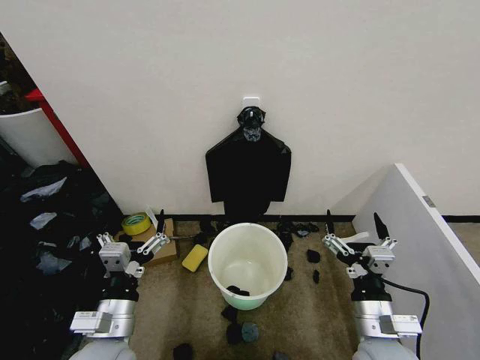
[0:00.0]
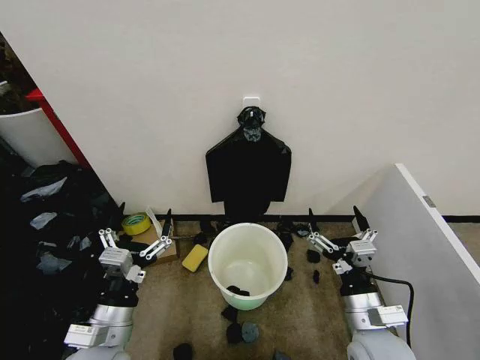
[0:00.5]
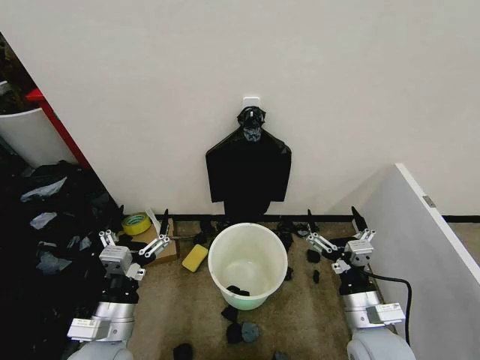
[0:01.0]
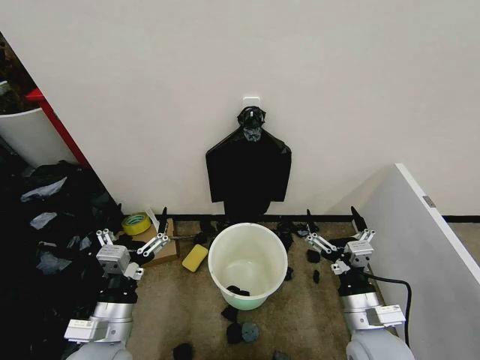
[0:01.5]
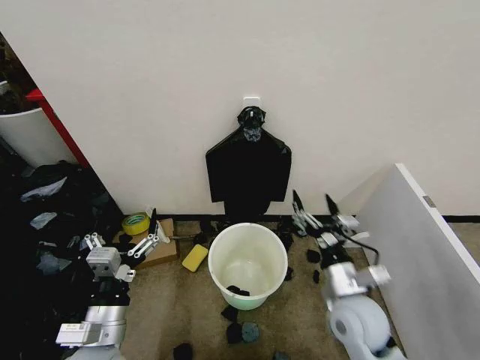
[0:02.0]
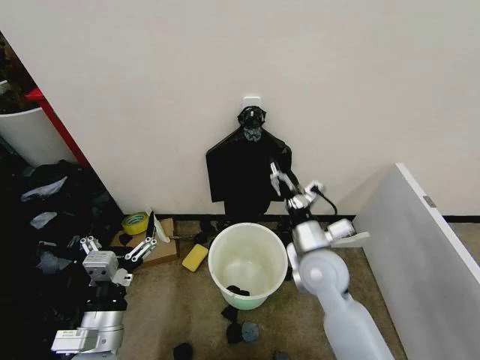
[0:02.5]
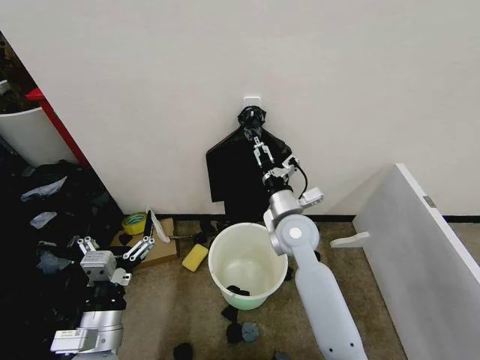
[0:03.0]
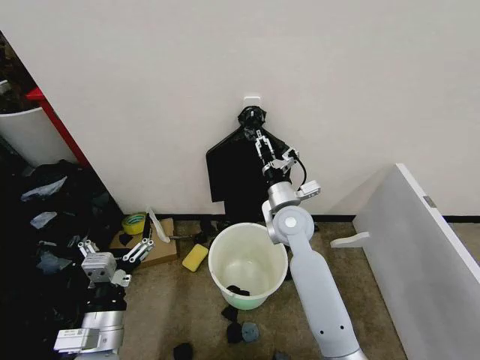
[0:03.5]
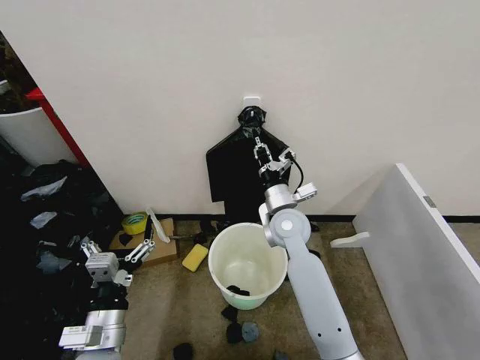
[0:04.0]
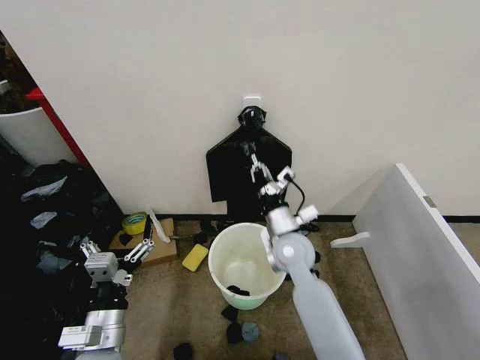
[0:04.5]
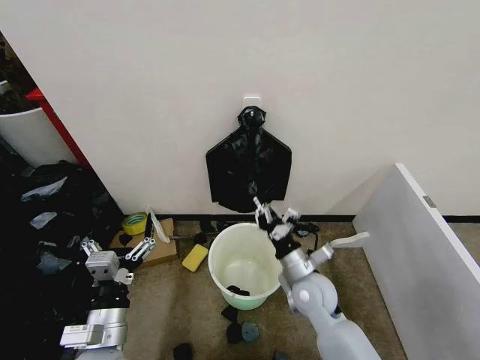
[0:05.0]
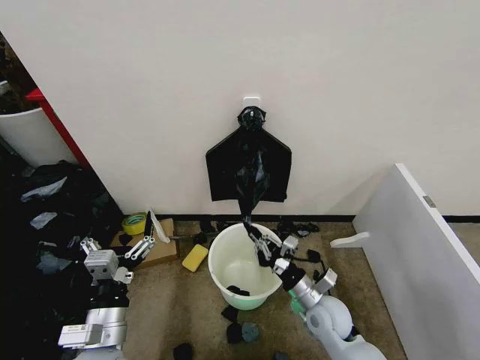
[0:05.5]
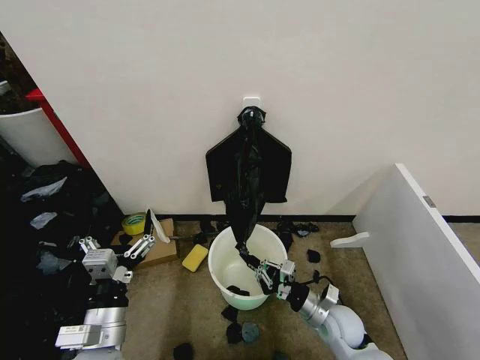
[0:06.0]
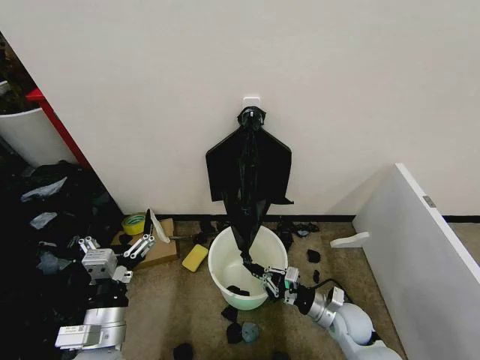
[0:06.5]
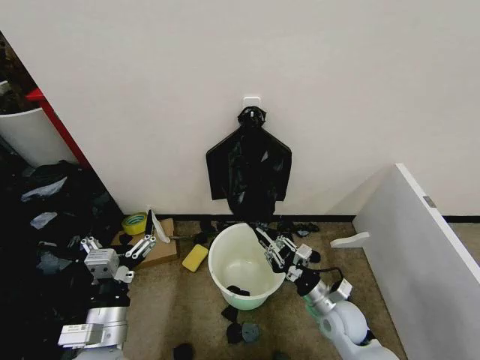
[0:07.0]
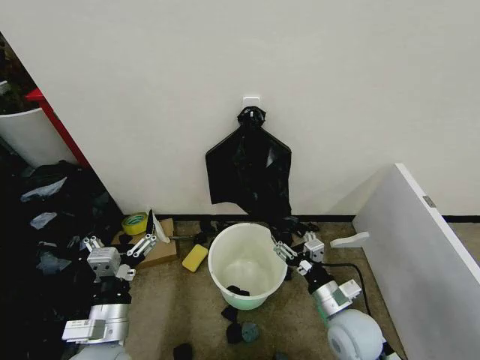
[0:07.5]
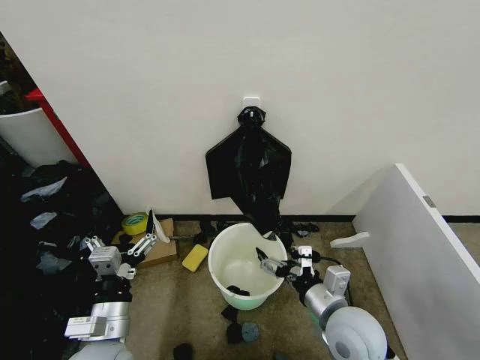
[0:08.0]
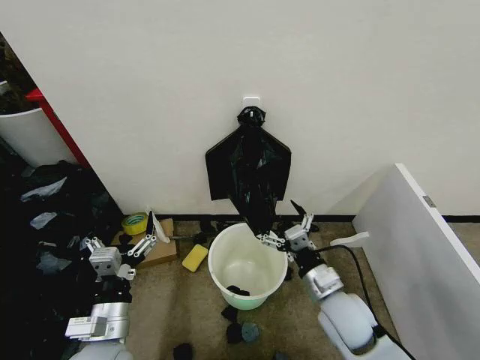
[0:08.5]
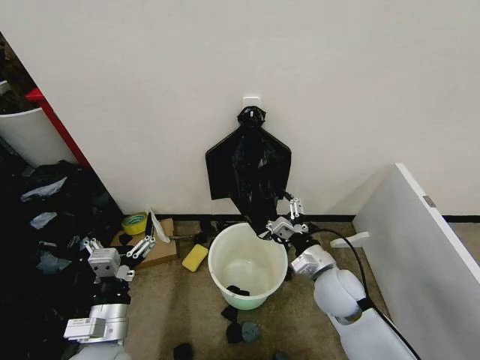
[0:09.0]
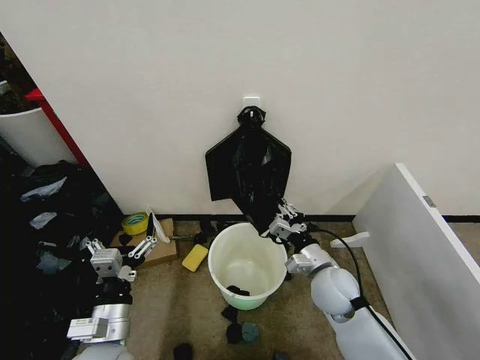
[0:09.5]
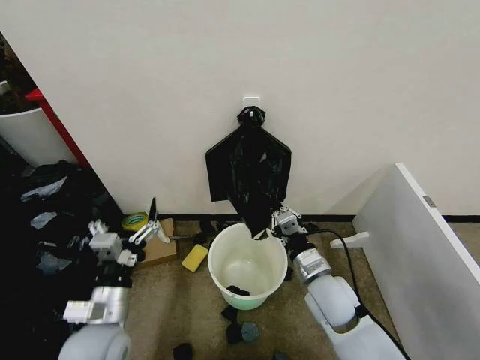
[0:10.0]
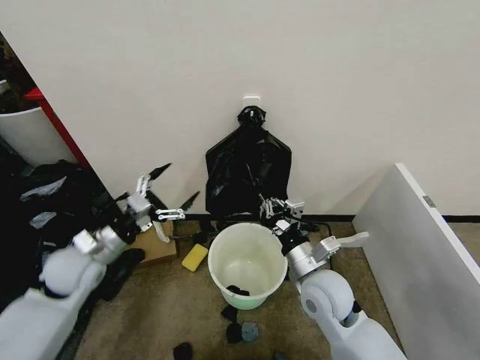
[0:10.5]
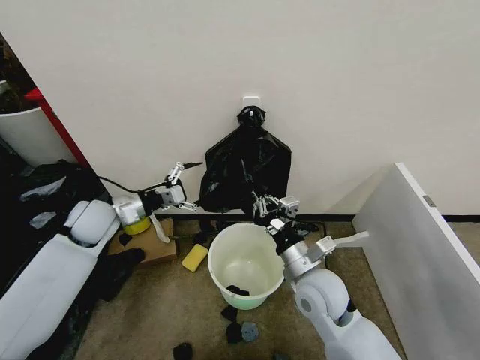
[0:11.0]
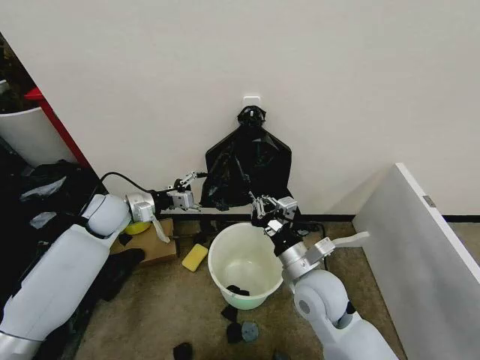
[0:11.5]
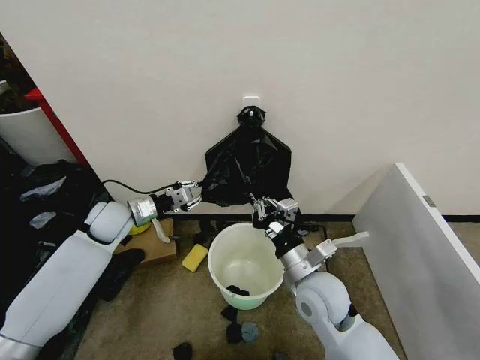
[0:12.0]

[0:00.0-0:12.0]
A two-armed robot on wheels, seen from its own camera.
Task of the whole recording: Place the garbage bag over the trash bin.
0:02.0 to 0:04.0: The right gripper travels forward and to the left by roughly 20 cm, and closes.
0:04.0 to 0:06.0: The right gripper goes about 25 cm downward, backward and to the right.
0:06.0 to 0:08.0: The right gripper heads upward, covering approximately 15 cm, and opens up.
0:08.0 to 0:10.0: The right gripper moves forward, some 5 cm, and closes its fingers.
0:10.0 to 0:12.0: The left gripper is displaced forward by about 25 cm, and closes its fingers.

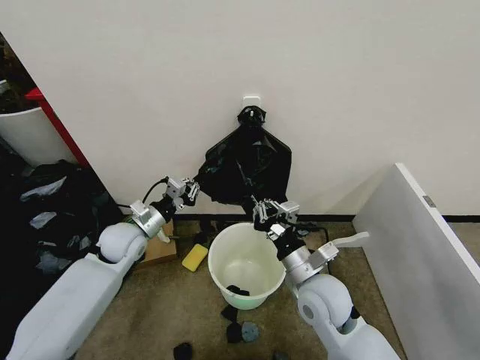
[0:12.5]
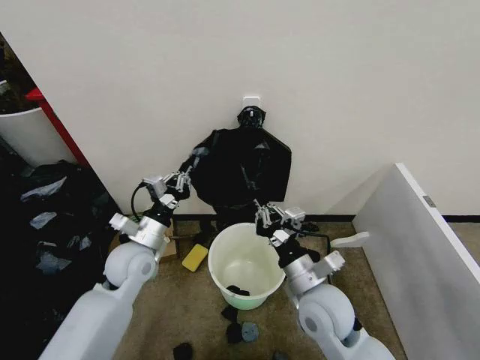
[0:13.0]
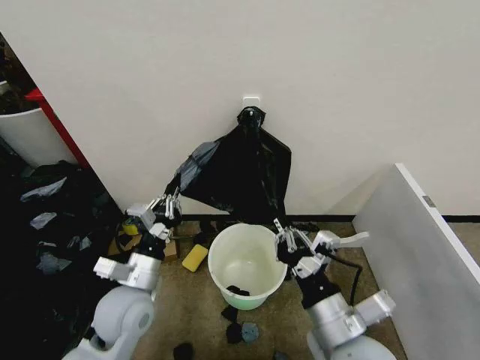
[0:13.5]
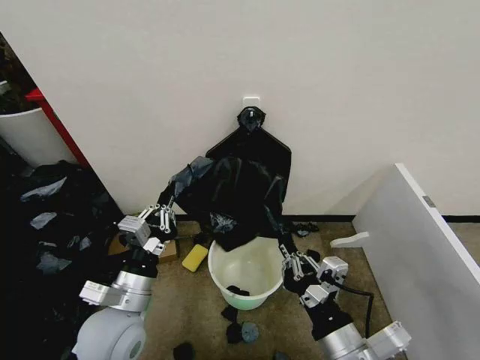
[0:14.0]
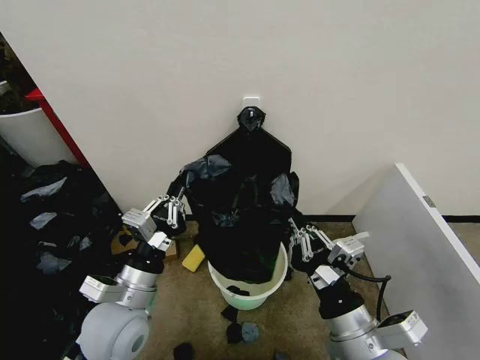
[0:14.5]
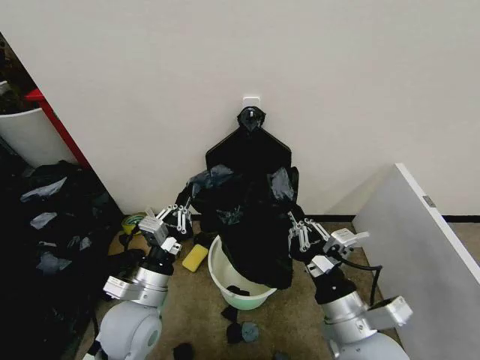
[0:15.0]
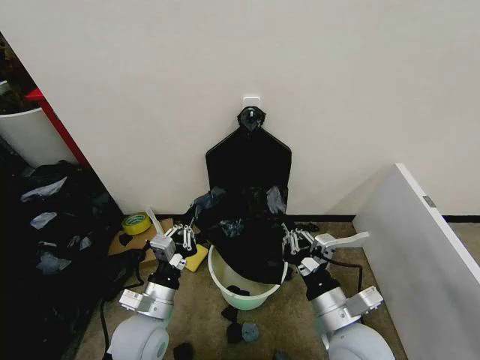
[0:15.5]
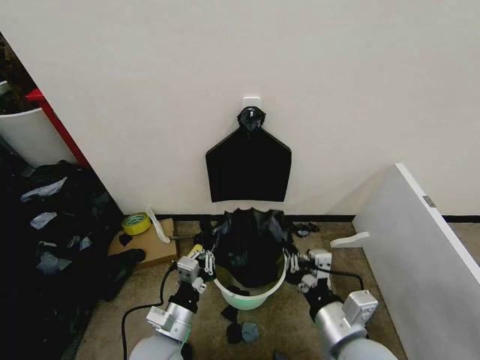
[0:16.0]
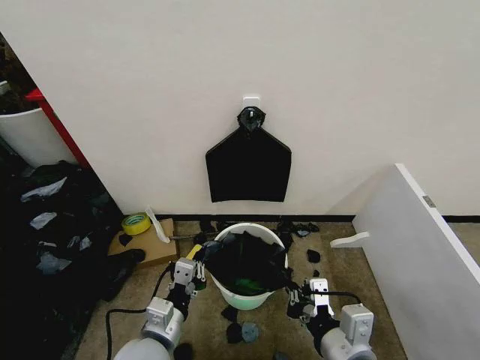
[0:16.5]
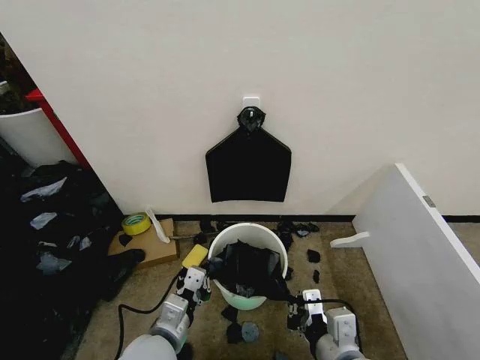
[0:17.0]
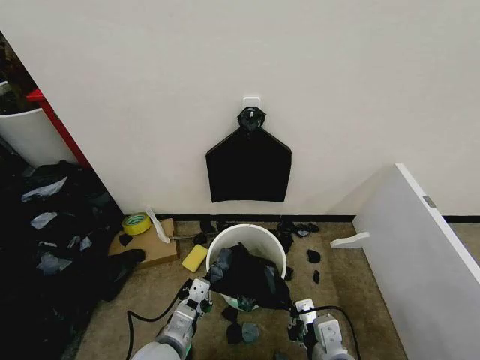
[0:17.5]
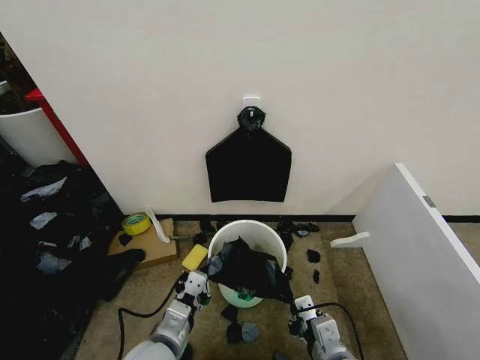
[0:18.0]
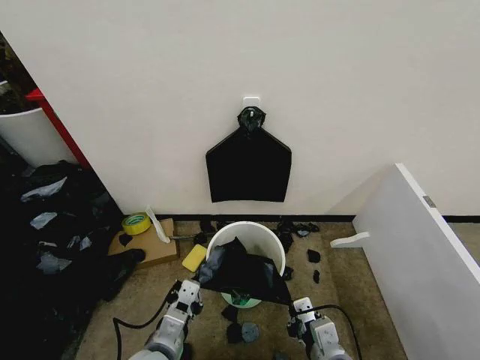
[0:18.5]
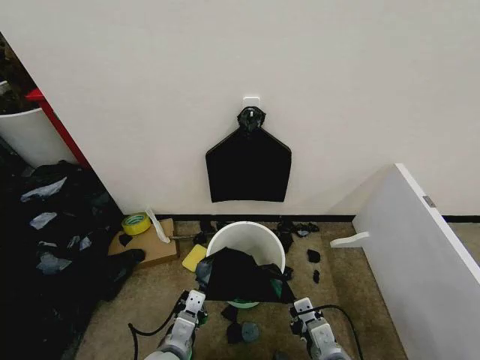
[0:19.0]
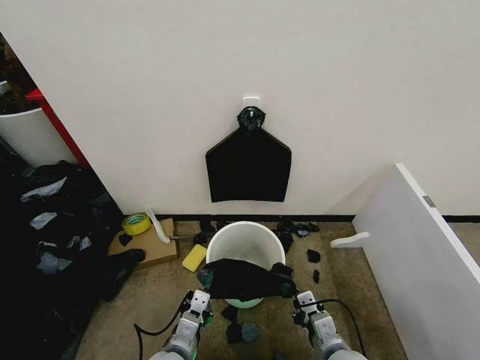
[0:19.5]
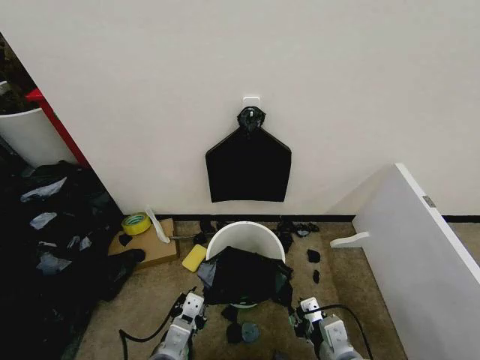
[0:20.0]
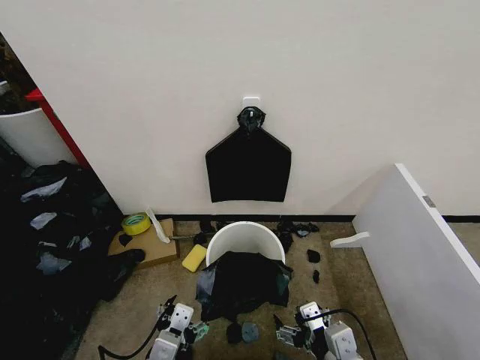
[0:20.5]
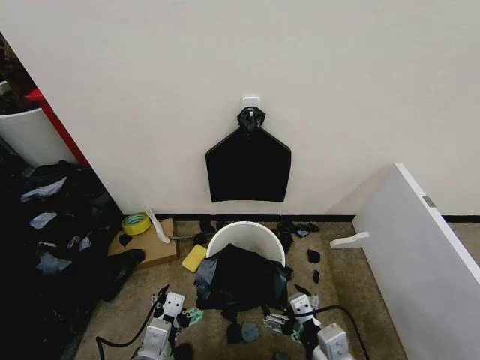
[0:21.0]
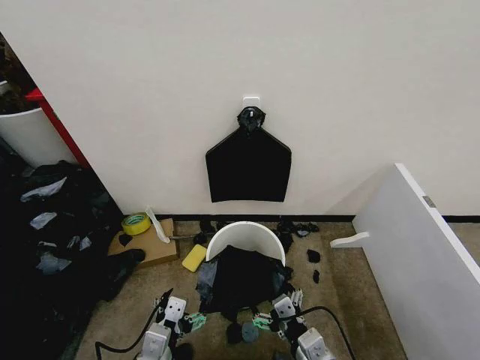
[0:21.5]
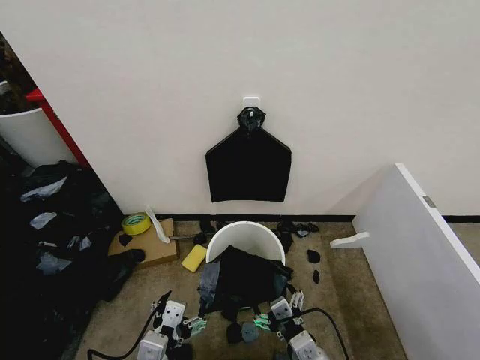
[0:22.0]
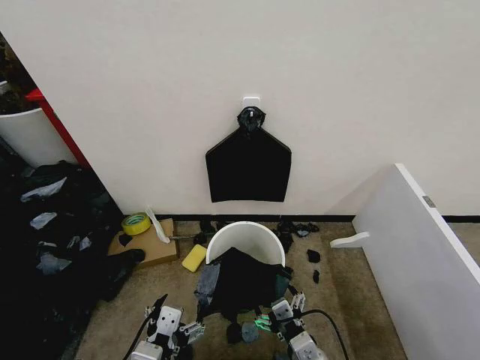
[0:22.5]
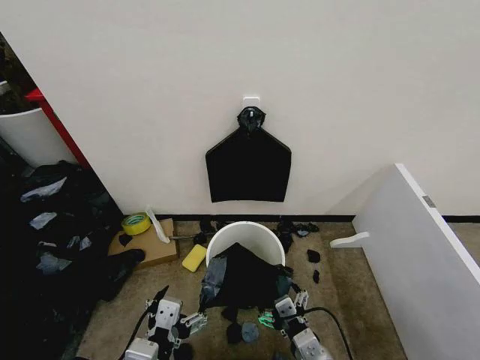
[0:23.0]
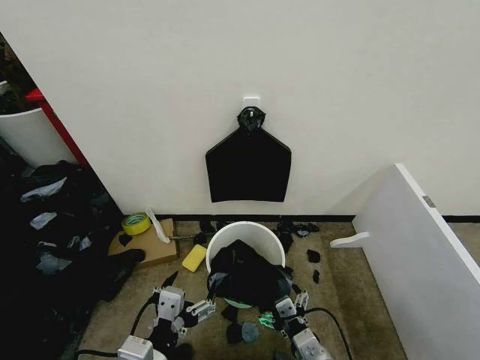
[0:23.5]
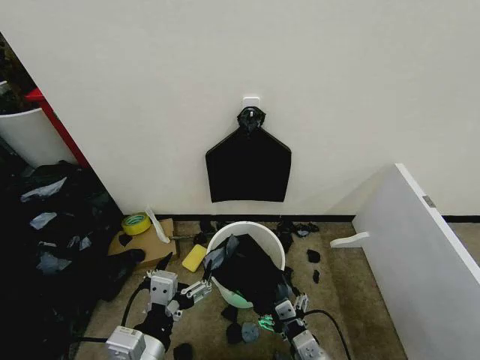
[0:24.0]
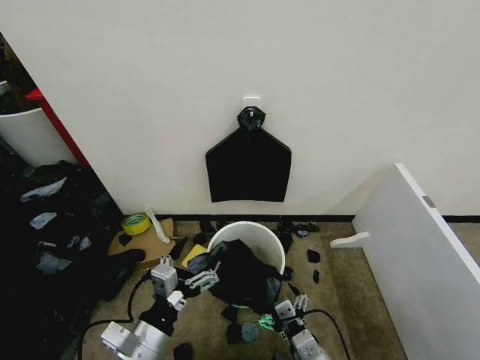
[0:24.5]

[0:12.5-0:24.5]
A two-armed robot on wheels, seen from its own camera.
Task of the whole recording: Place the garbage bag over the trash bin.
0:12.5 to 0:14.5: The left gripper moves backward, some 20 cm. The right gripper moves backward and upward, approximately 15 cm.
0:14.5 to 0:16.5: The left gripper travels downward by about 5 cm.
0:16.5 to 0:18.5: The right gripper shifts approximately 10 cm downward.
0:18.5 to 0:20.5: The left gripper travels downward and back again, roughly 5 cm each way, and opens its fingers, while the right gripper opens up.
0:20.5 to 0:22.5: The right gripper heads downward, covering roughly 10 cm.
0:22.5 to 0:24.5: The left gripper heads forward, covering about 5 cm.

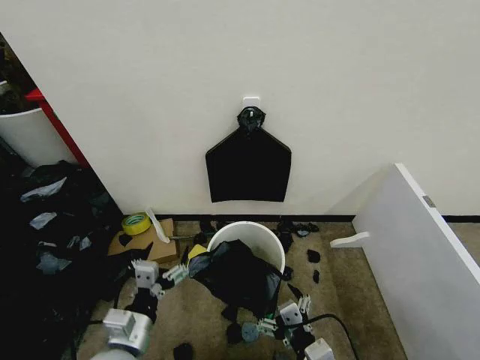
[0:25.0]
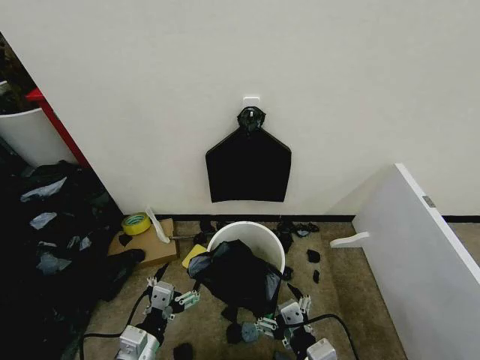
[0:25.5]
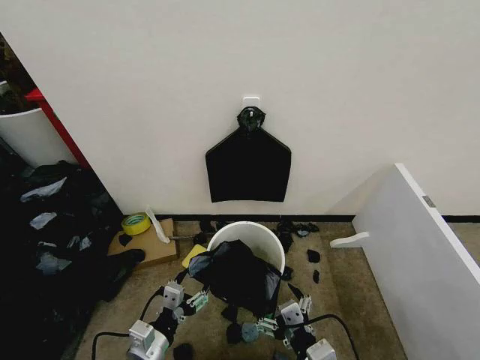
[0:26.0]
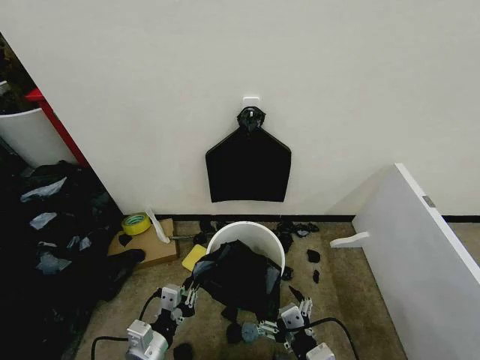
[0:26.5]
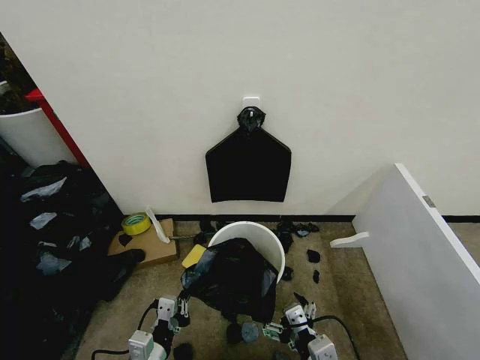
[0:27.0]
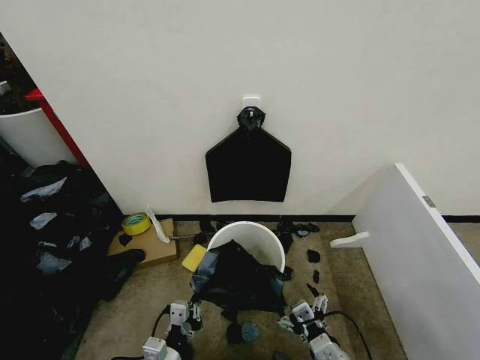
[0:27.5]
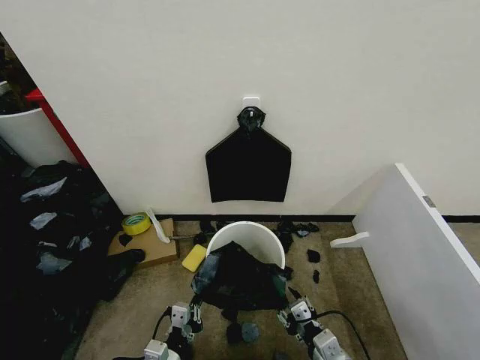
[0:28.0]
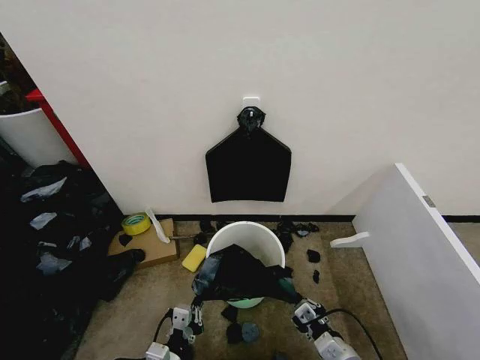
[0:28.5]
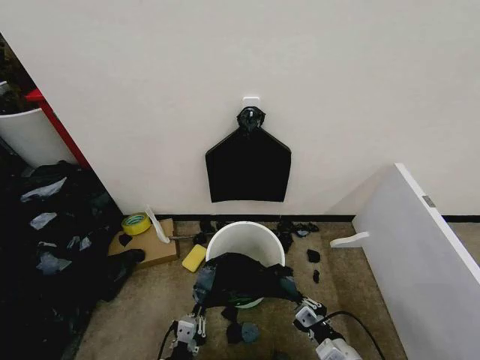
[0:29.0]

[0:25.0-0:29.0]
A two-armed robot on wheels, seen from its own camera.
Task of the whole recording: Place the garbage bag over the trash bin.
0:25.0 to 0:27.0: The left gripper goes about 5 cm downward, and closes.
0:27.0 to 0:29.0: The right gripper heads downward and to the right, covering approximately 10 cm, and closes. The left gripper shifts roughly 5 cm downward.
